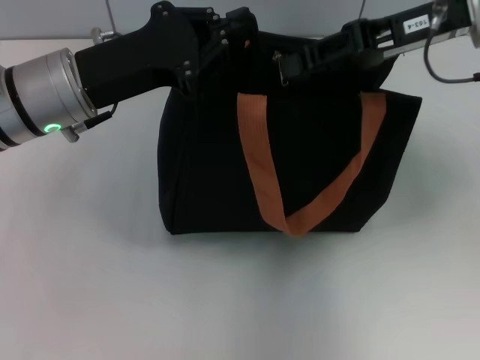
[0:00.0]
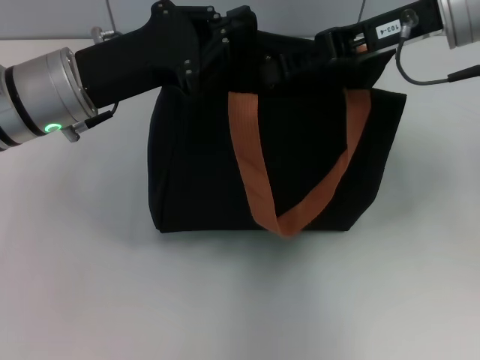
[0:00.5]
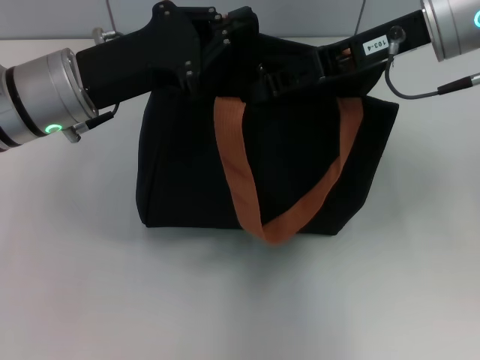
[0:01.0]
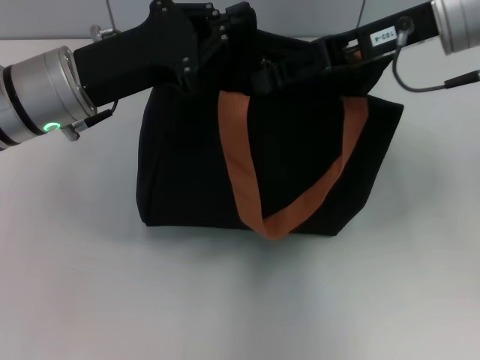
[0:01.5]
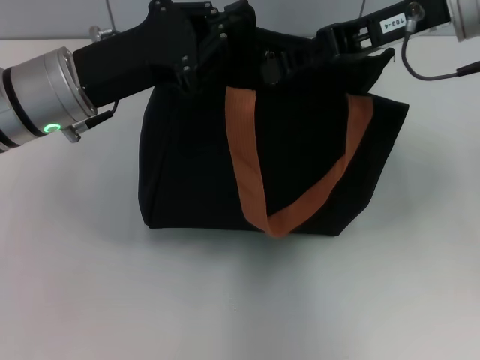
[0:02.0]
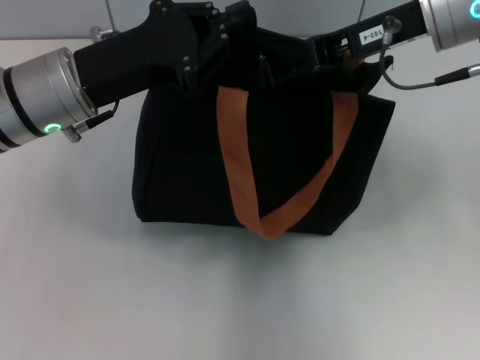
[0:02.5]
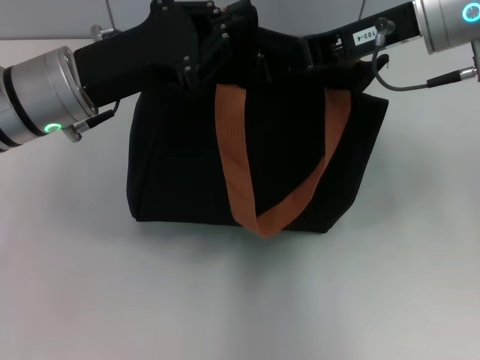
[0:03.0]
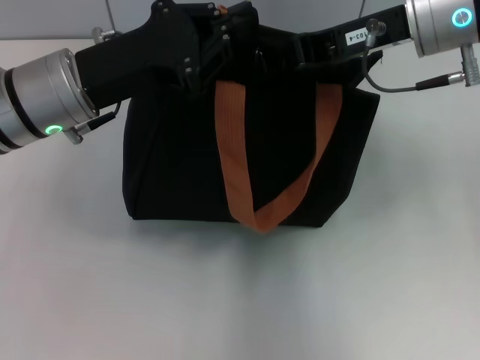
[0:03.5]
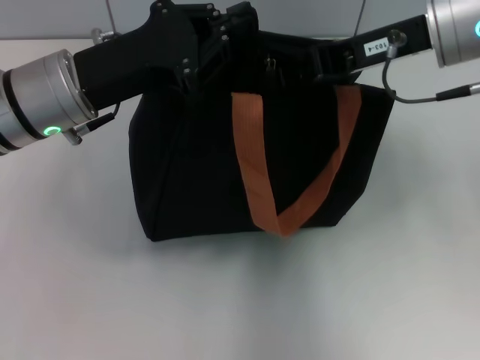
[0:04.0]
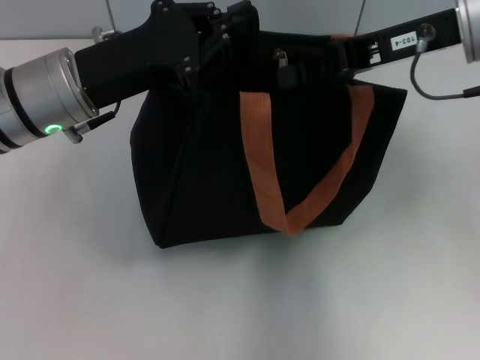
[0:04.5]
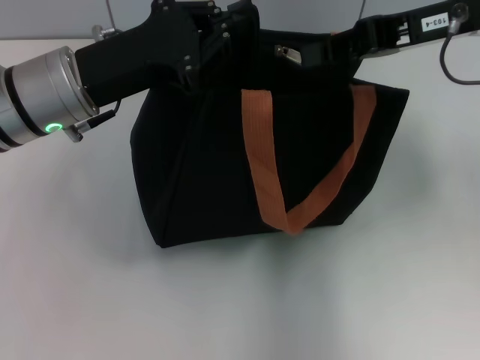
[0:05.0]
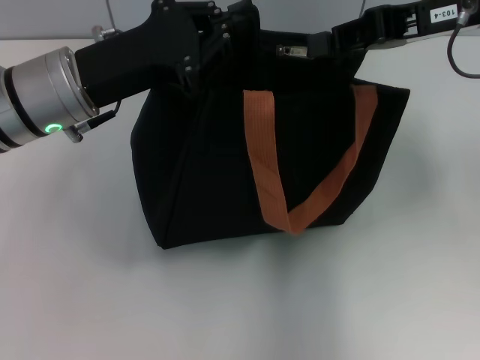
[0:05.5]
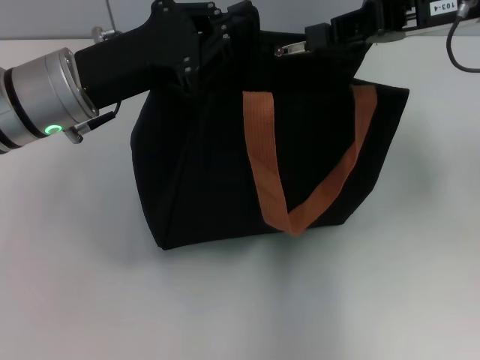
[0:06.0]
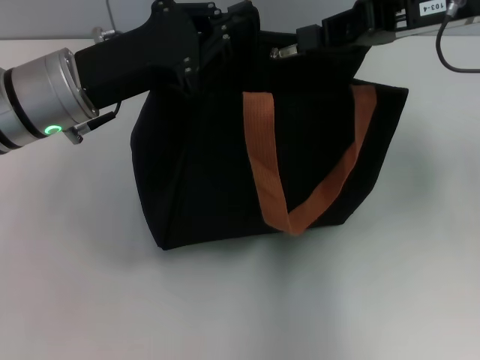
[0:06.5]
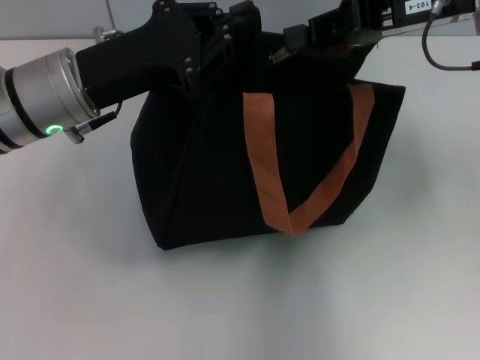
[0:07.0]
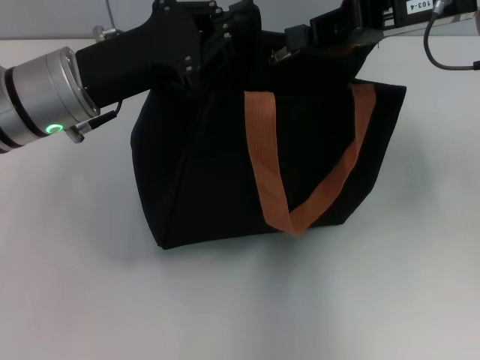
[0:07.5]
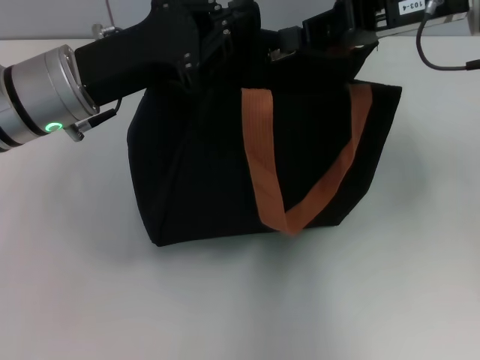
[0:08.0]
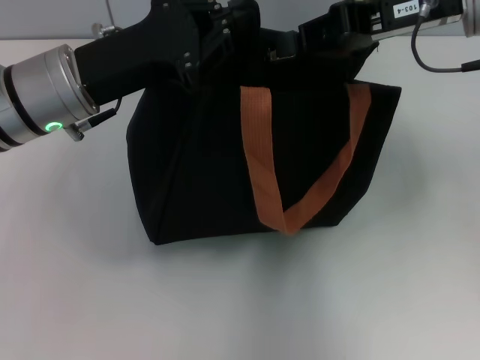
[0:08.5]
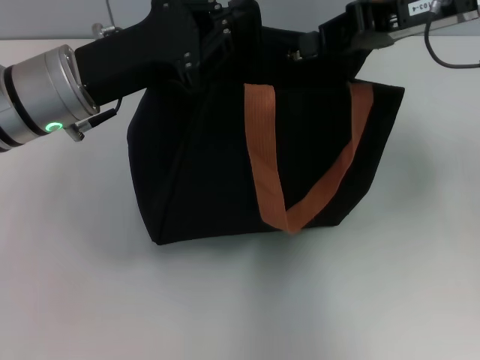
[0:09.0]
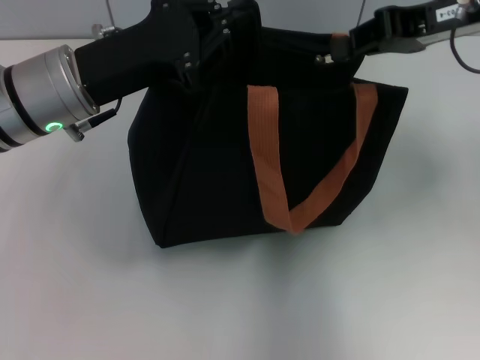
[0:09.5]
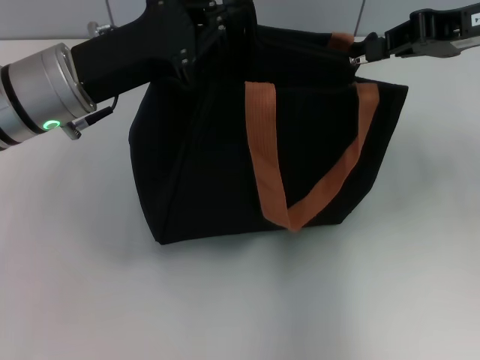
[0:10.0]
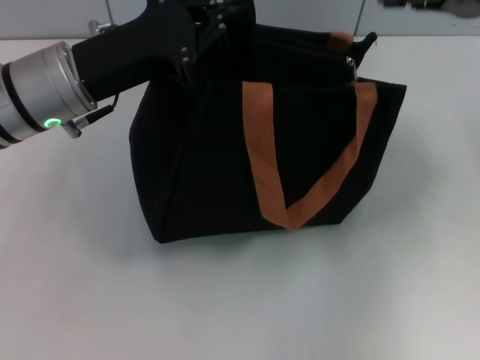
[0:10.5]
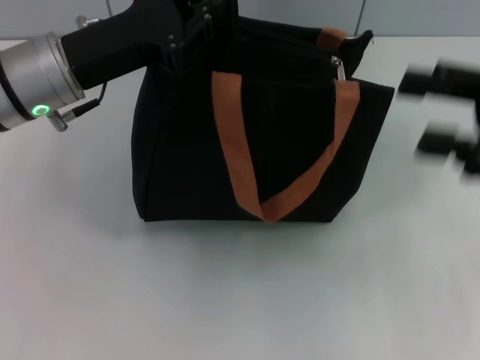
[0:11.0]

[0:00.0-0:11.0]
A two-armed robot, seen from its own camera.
Step, 0:00.0 to 0:10.0: Pull up the zipper with your right hand.
0:00.0 to 0:03.5: There are only small adjustments of the grippers.
0:03.5 to 0:05.5: The right gripper travels to the right by roughly 5 cm.
0:05.5 to 0:09.0: There are only small adjustments of the grippers.
0:09.0 to 0:11.0: The right gripper is displaced backward, to the right and downward by about 15 cm, and opens up.

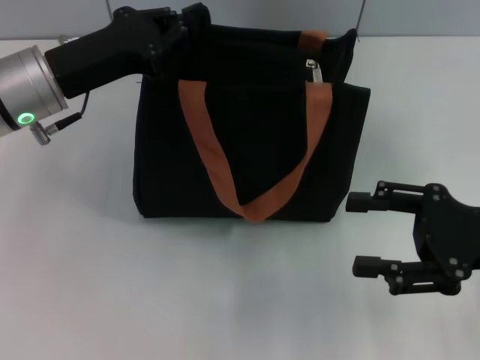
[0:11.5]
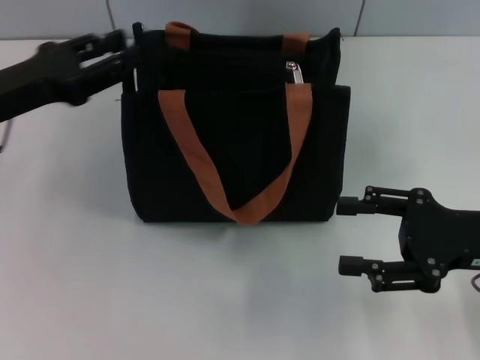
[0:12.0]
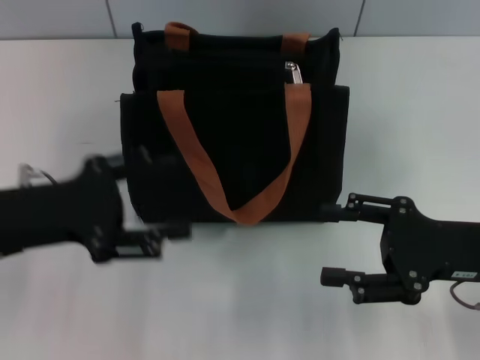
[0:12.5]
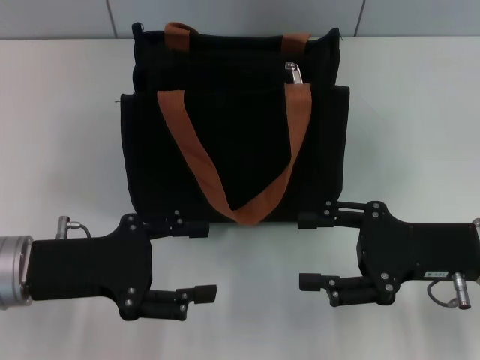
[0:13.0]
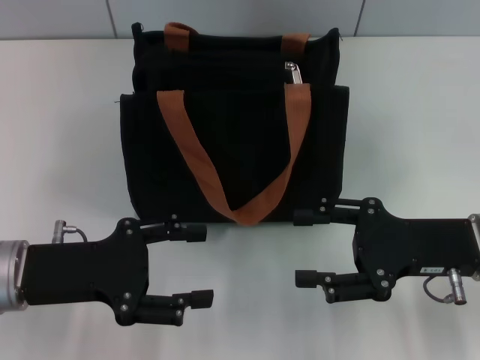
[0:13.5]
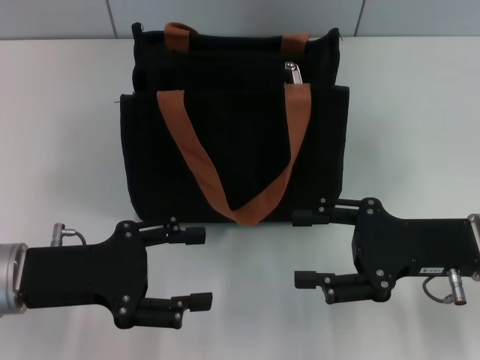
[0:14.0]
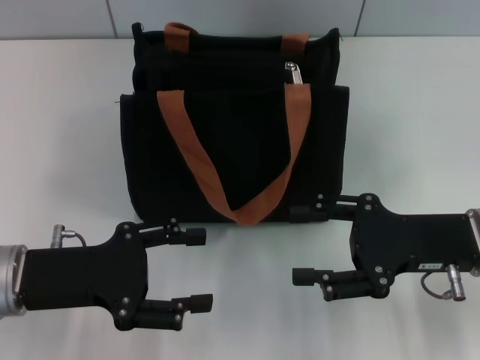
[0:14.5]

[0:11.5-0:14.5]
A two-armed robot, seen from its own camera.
0:11.5 to 0:13.0: The left gripper goes about 15 cm backward and downward, and opens.
0:13.0 to 0:14.5: Both grippers stay about where they are.
